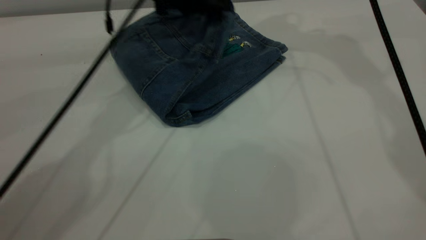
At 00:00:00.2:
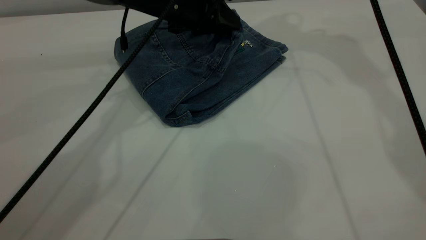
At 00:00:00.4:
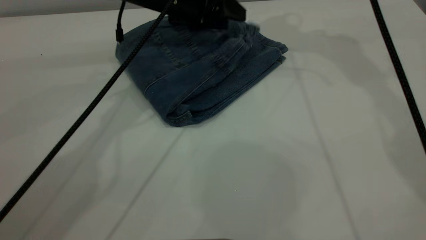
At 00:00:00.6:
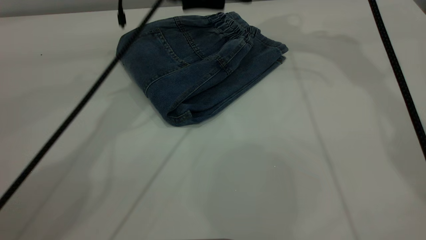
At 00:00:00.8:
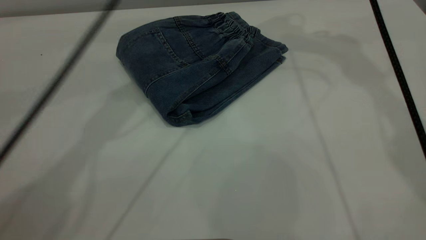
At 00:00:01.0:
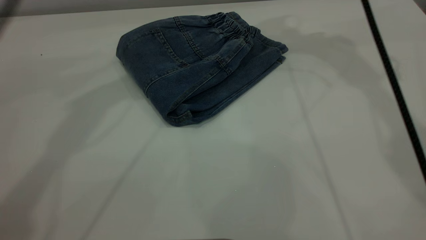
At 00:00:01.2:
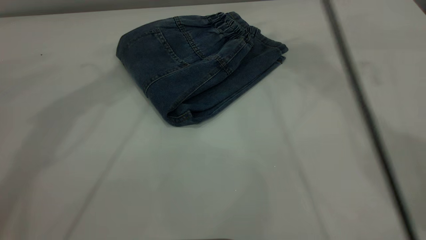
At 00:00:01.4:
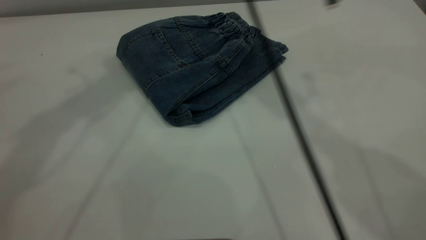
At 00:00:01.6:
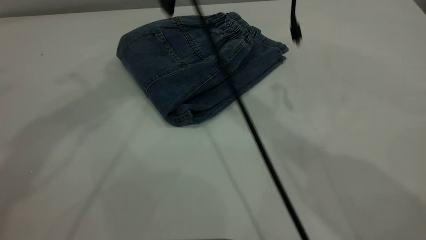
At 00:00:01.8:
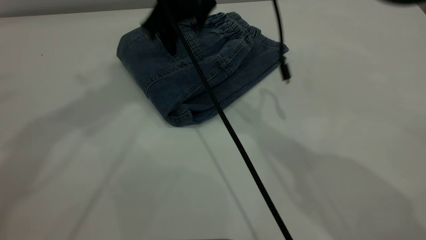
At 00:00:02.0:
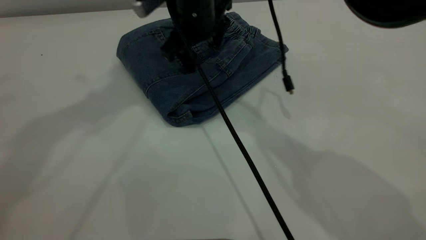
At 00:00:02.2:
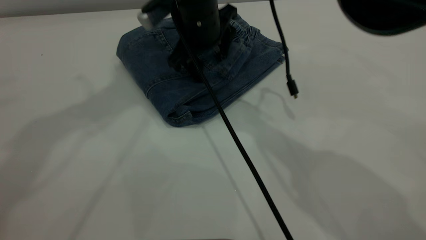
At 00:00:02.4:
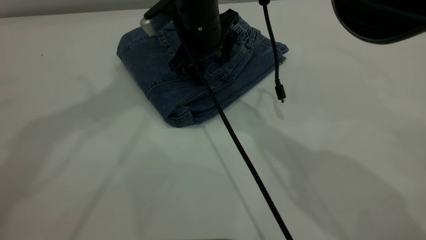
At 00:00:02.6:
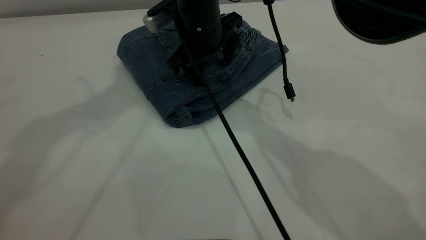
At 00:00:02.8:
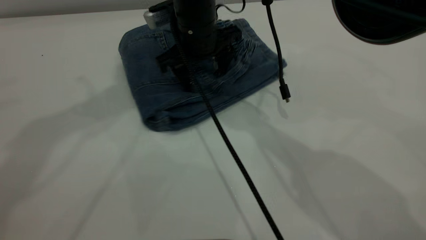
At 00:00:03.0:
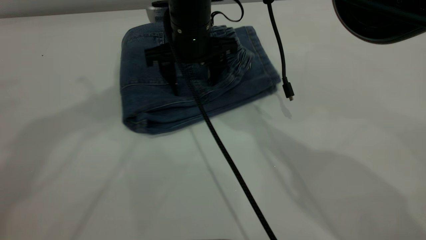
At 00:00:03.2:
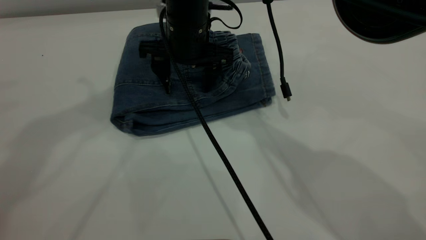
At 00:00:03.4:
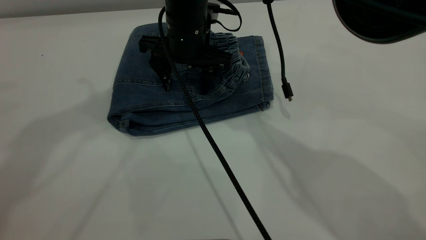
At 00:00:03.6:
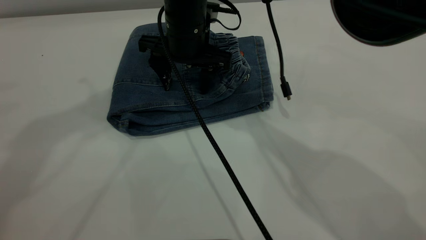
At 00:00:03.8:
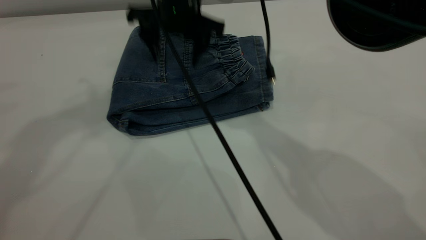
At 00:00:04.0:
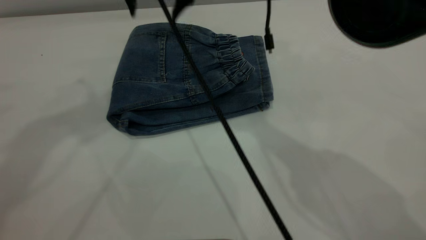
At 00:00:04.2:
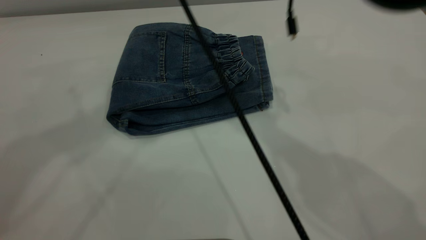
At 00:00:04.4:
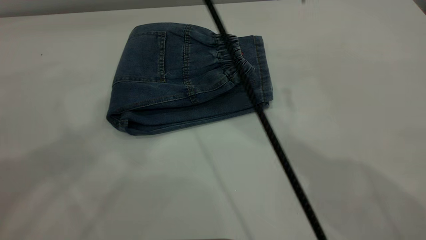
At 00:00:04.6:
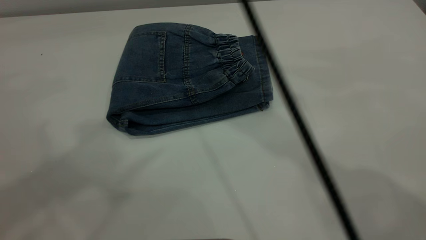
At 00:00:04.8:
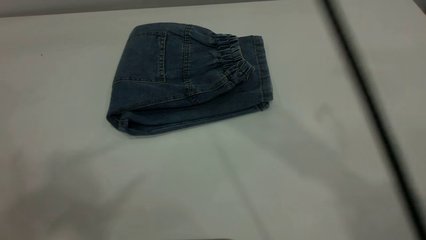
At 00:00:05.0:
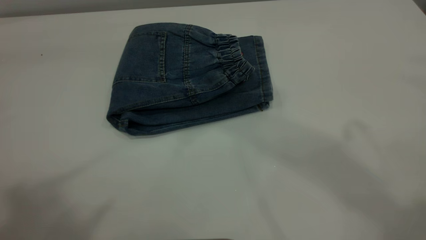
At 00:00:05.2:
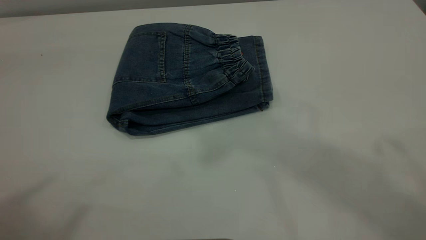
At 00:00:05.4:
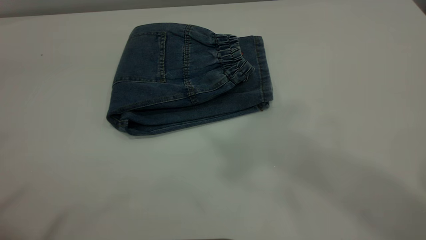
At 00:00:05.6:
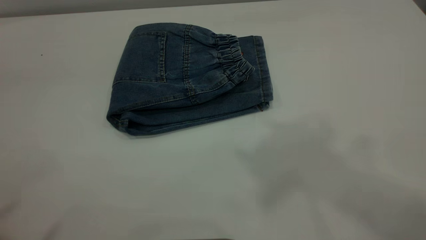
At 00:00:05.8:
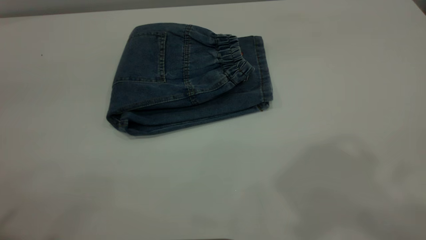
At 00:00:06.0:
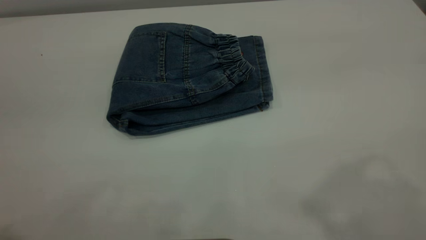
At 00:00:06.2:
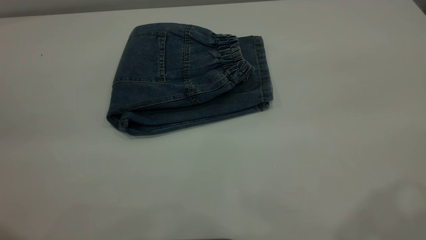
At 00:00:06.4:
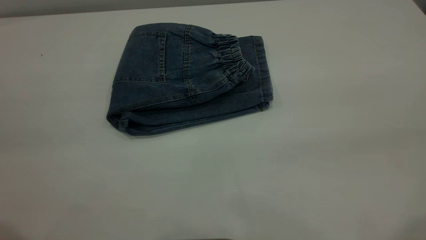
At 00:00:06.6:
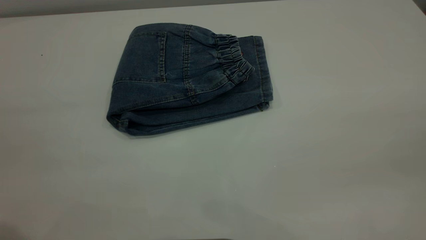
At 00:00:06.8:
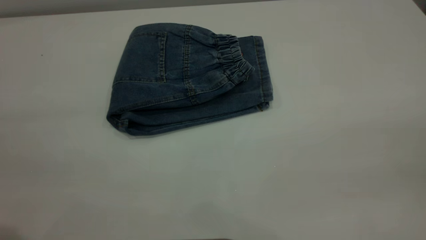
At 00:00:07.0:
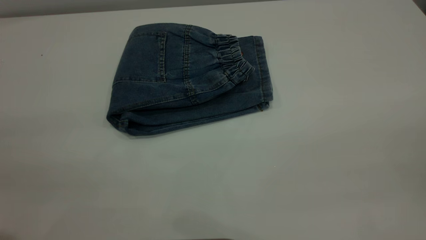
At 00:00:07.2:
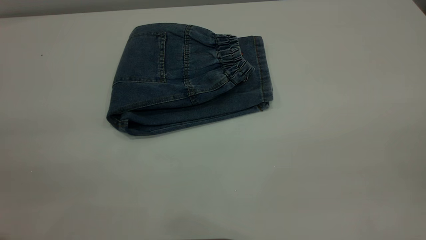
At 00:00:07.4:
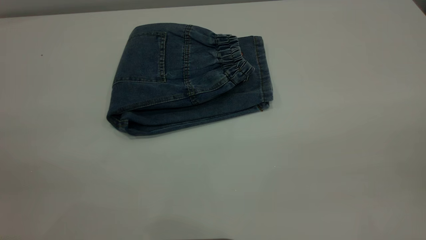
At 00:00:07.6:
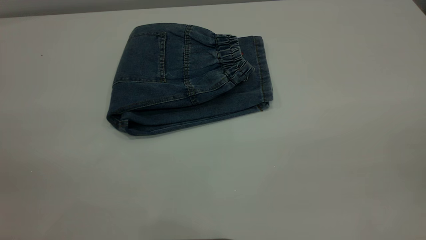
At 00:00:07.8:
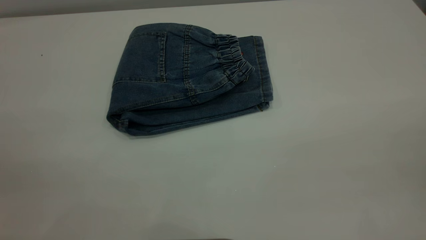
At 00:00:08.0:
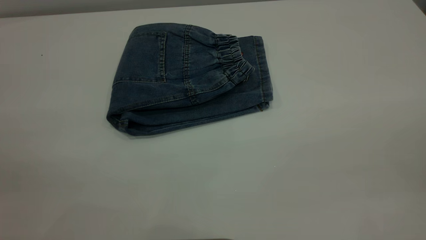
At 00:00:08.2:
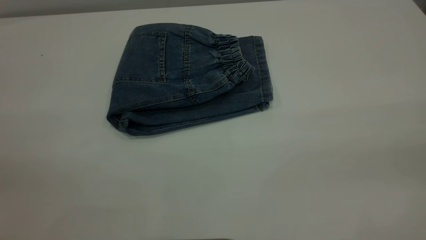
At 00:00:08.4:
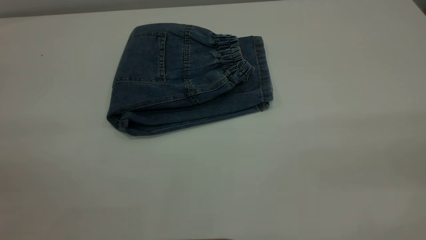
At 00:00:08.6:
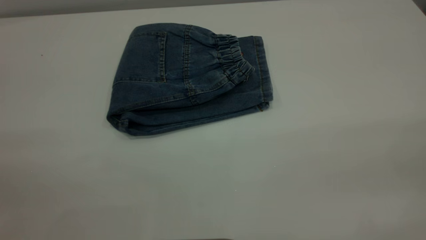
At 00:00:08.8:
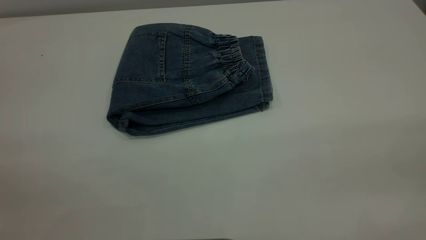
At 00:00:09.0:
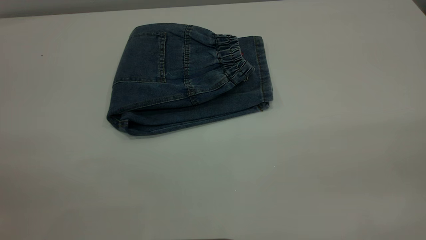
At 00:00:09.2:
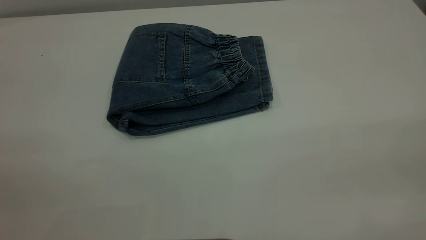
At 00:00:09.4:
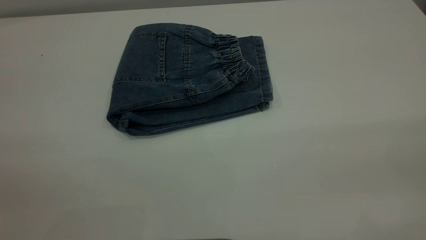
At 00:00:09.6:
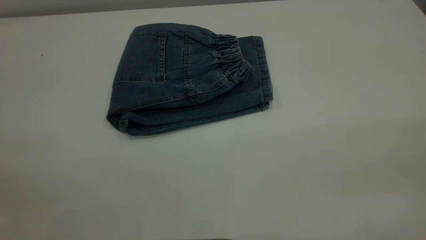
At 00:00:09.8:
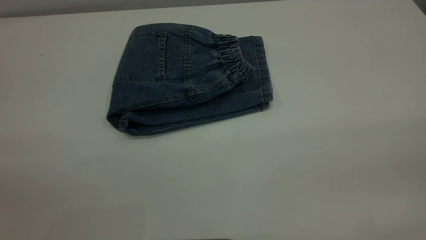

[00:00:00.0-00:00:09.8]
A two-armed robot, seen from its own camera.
00:00:00.0 to 00:00:01.4: The left gripper moves upward, some 30 cm, and opens, while the right gripper goes some 15 cm to the left and backward.
00:00:01.4 to 00:00:02.8: The right gripper moves downward, some 15 cm.
00:00:02.8 to 00:00:04.2: The right gripper shifts roughly 20 cm upward. The left gripper moves approximately 5 cm.
00:00:04.2 to 00:00:05.6: The right gripper shifts some 35 cm upward, backward and to the right. The left gripper is displaced backward by about 20 cm.
